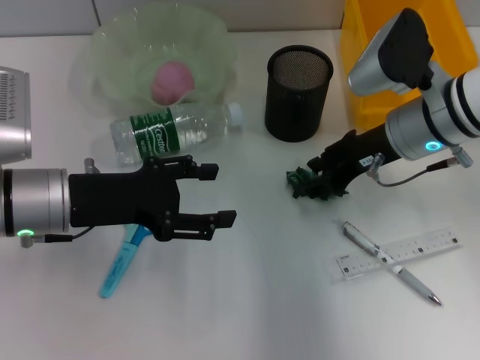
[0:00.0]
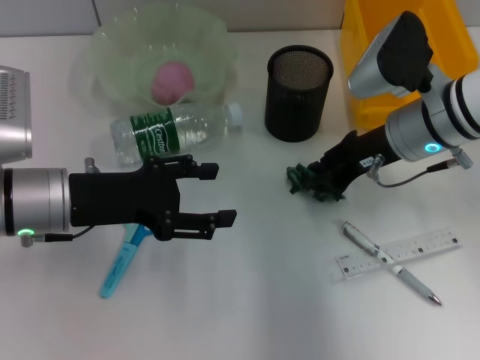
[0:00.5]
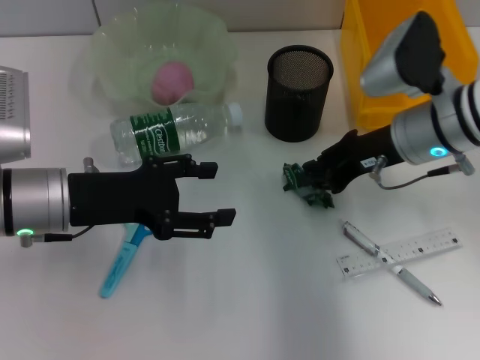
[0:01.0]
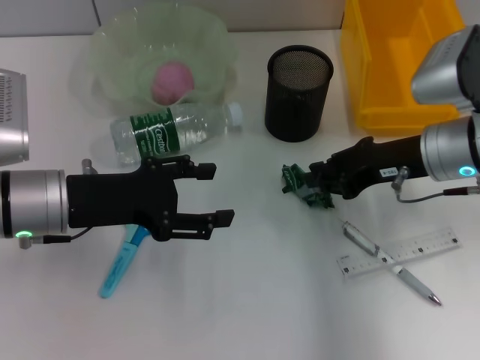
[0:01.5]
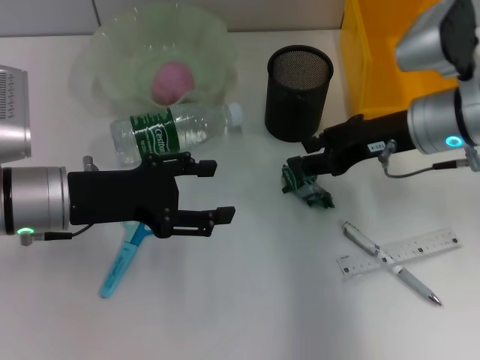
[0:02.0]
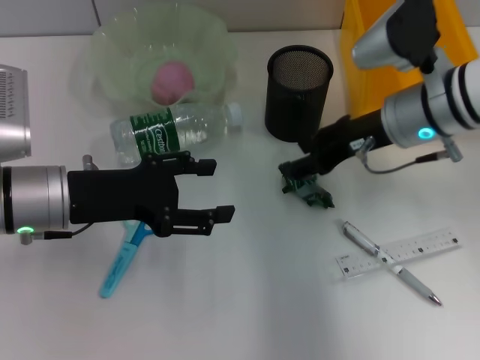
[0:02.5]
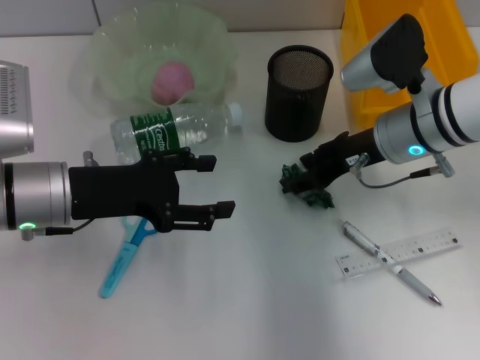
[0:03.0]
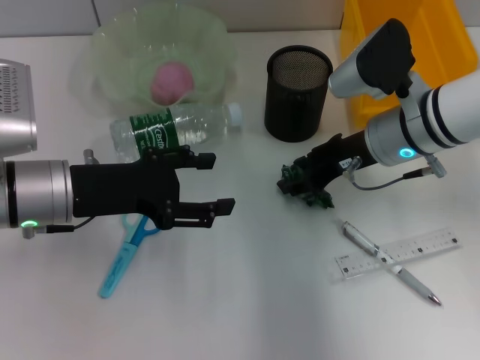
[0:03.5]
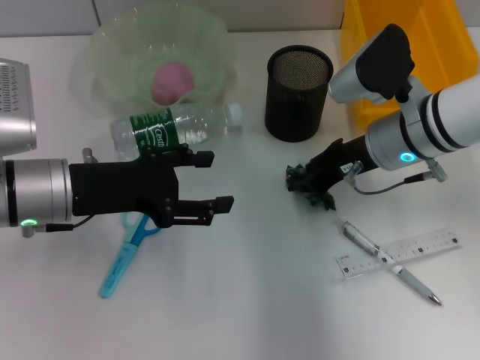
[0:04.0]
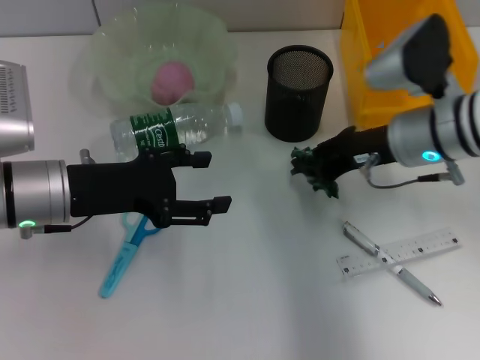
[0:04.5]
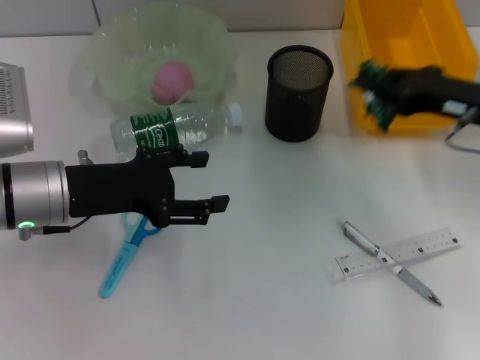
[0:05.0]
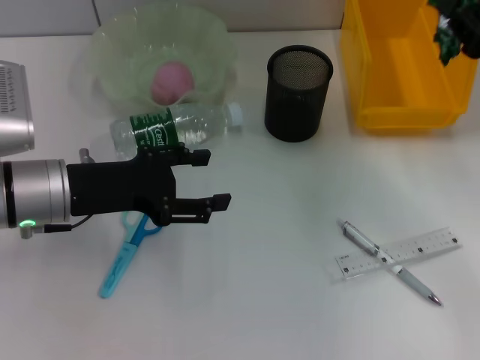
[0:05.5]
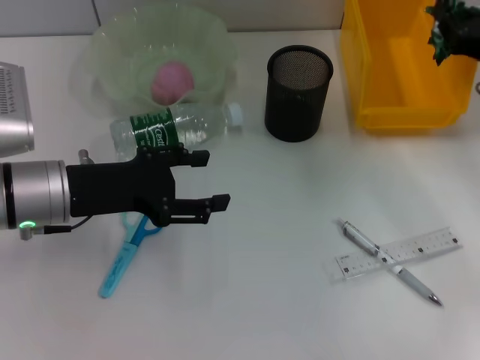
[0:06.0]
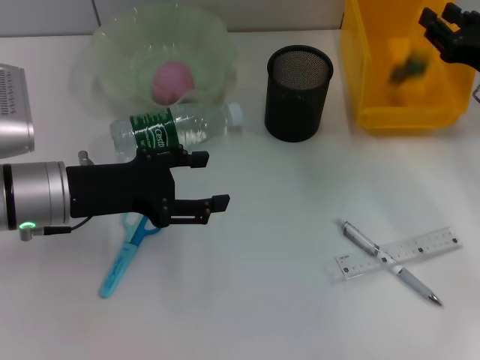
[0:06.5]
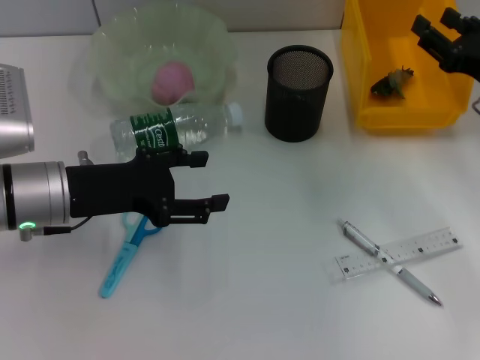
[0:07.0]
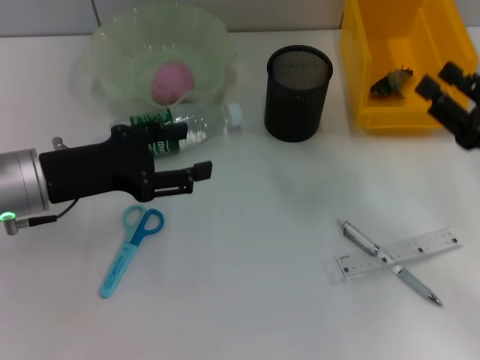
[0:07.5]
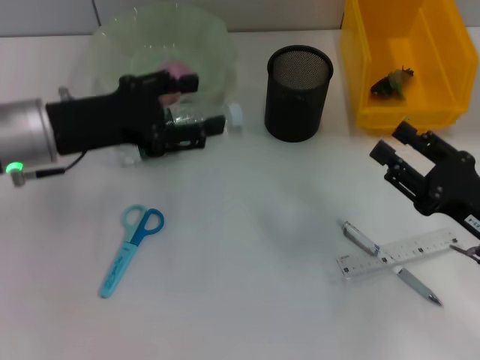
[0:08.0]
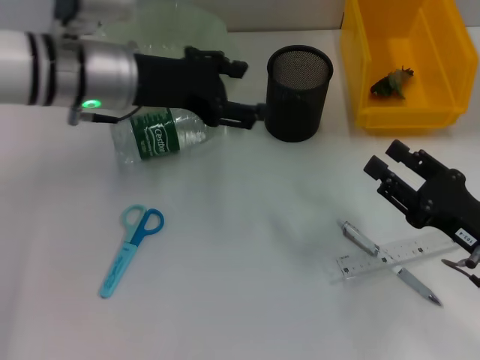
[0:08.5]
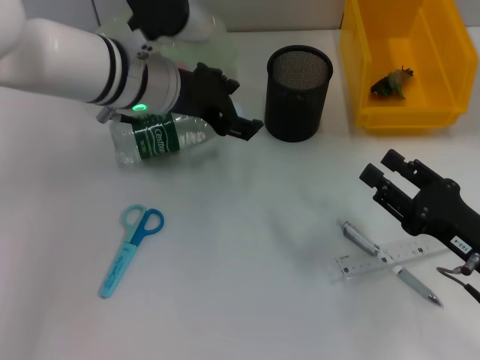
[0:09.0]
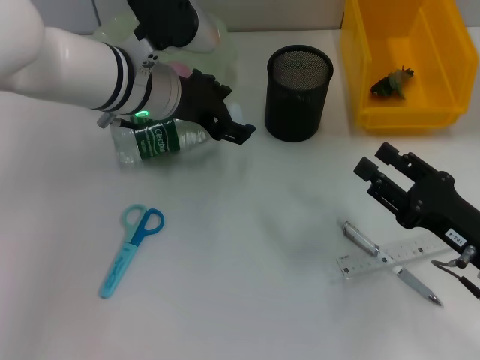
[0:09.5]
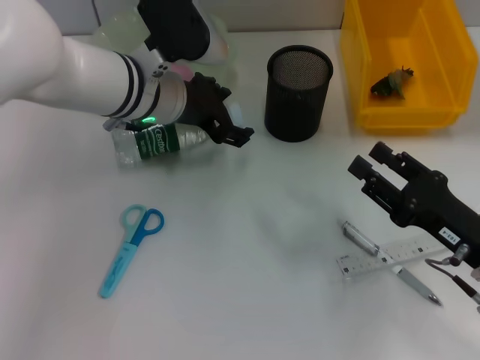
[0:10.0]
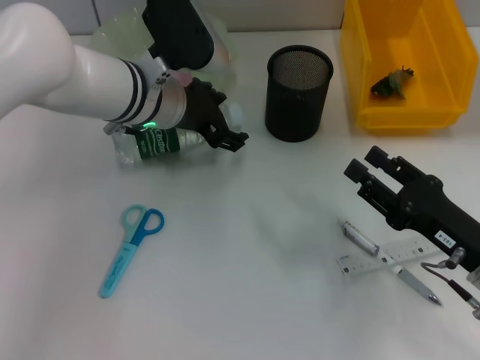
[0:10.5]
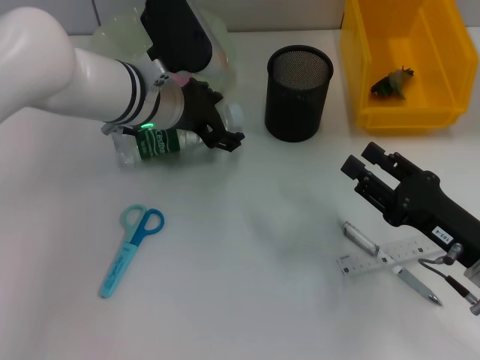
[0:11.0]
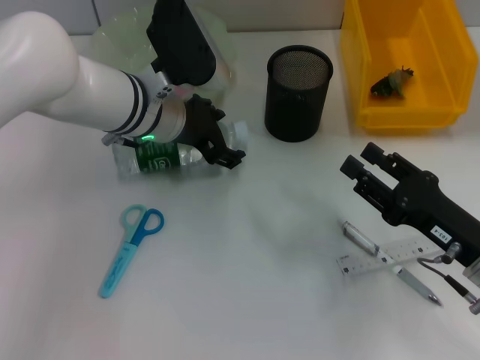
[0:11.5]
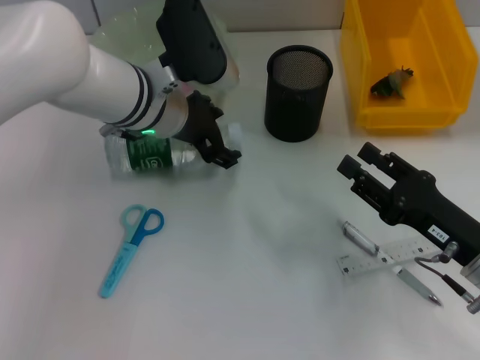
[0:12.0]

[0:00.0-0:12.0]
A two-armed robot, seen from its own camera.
Step, 0:01.0 to 0:06.5: Place the plastic into the trash can with the right hand.
0:00.0 to 0:02.0: The right gripper closes up.
0:02.0 to 0:04.0: The right gripper opens and closes again.
0:04.0 to 0:06.0: The right gripper travels to the right by about 15 cm.
0:06.0 to 0:08.0: The right gripper travels backward and downward by approximately 15 cm, and opens its fingers.
0:08.0 to 0:10.0: The left gripper is displaced to the right and forward by some 15 cm.
0:10.0 to 0:12.0: The grippers make only small movements.

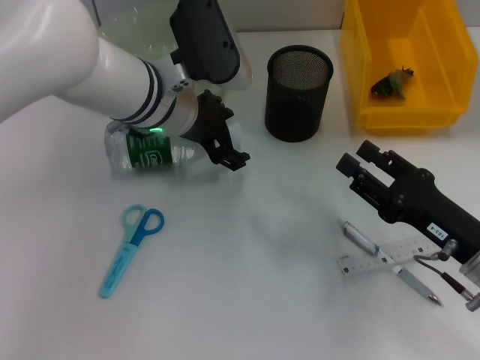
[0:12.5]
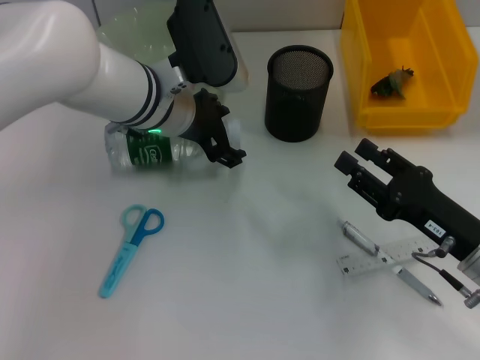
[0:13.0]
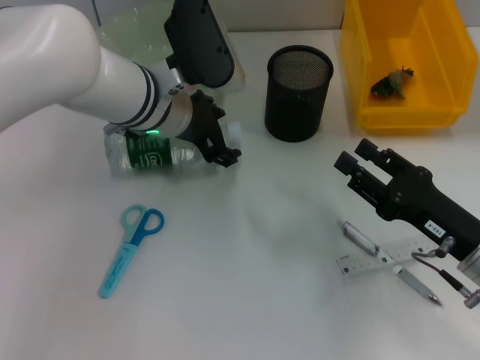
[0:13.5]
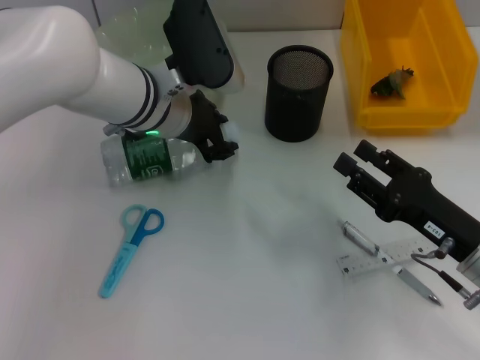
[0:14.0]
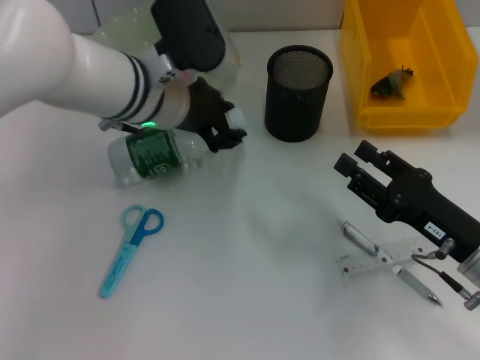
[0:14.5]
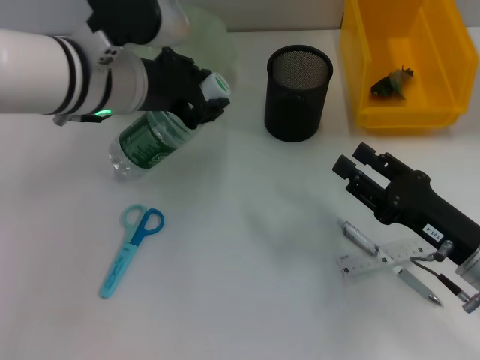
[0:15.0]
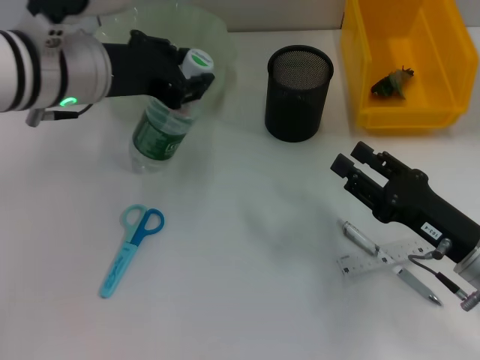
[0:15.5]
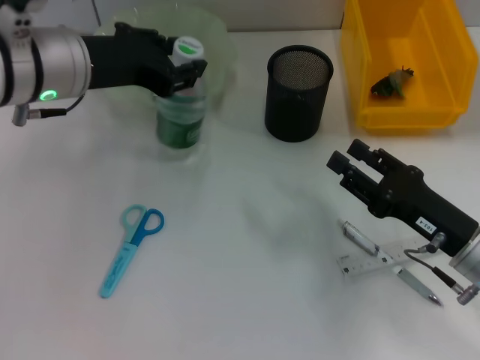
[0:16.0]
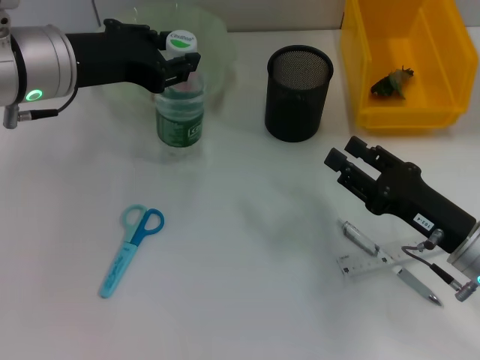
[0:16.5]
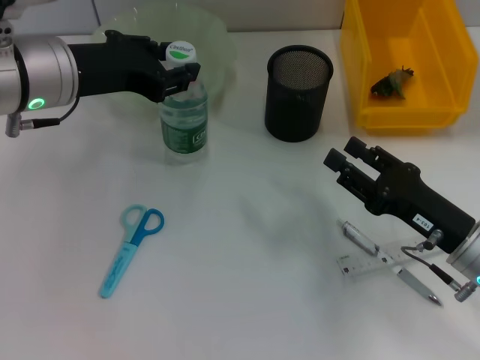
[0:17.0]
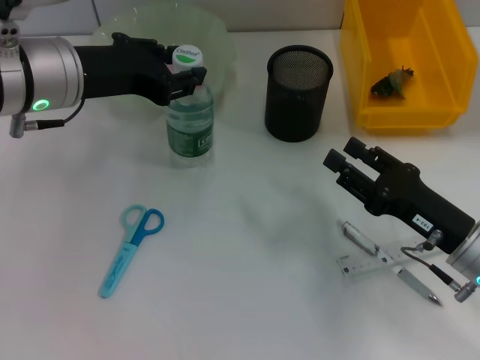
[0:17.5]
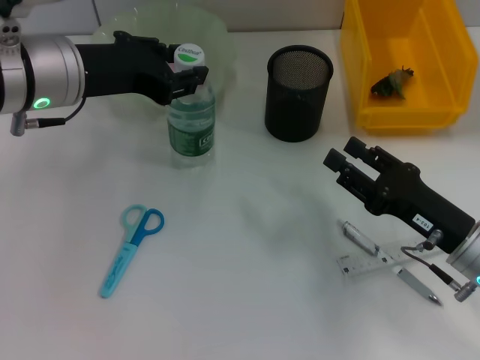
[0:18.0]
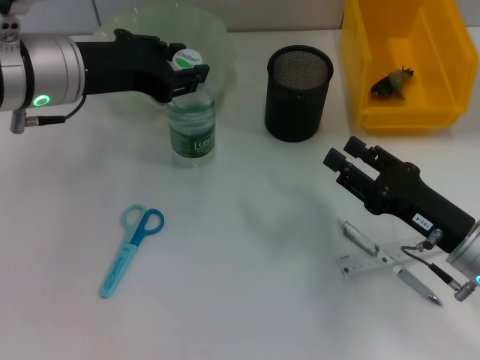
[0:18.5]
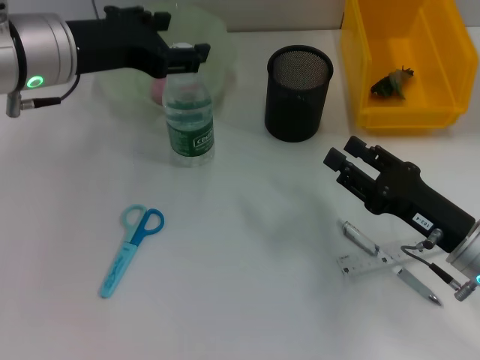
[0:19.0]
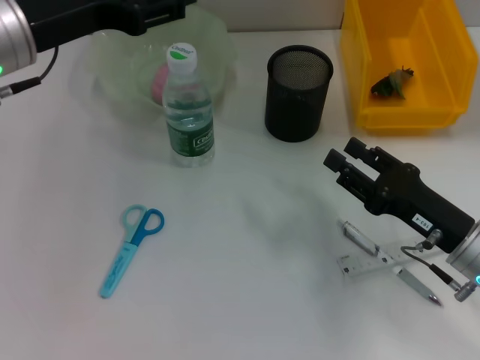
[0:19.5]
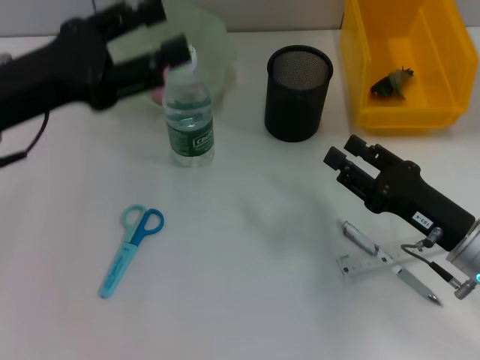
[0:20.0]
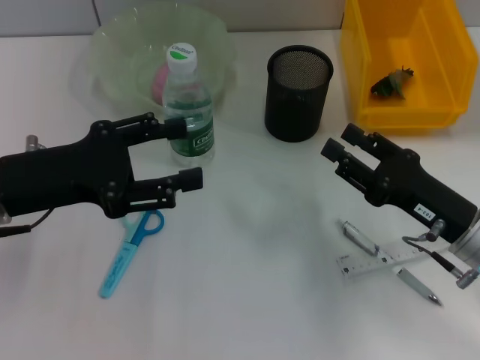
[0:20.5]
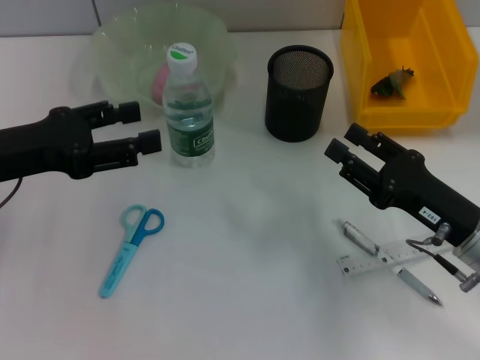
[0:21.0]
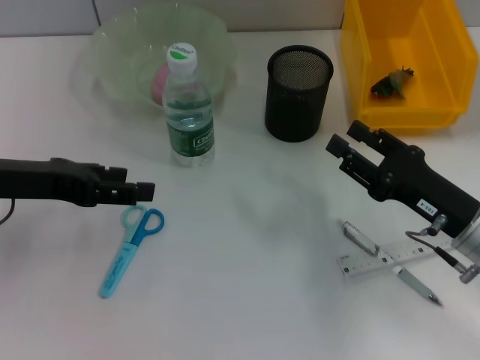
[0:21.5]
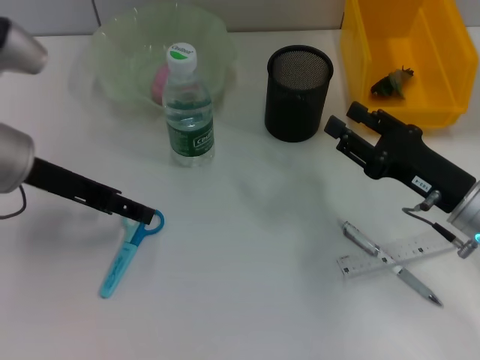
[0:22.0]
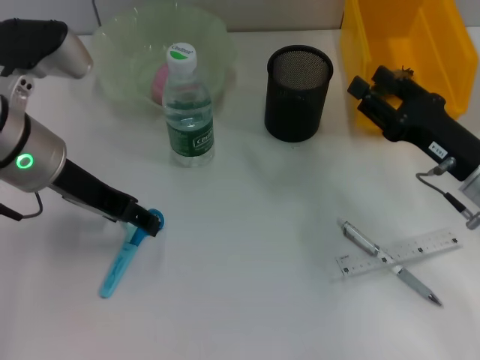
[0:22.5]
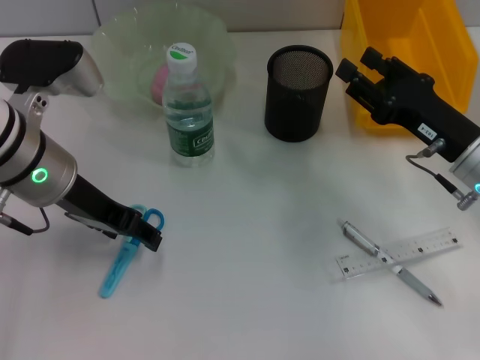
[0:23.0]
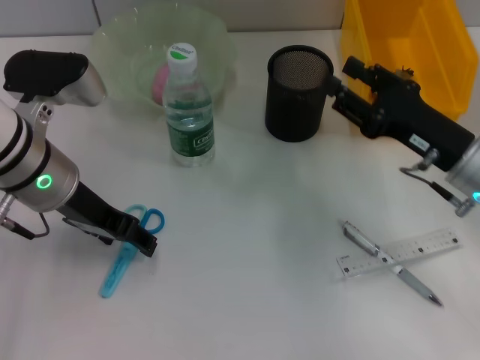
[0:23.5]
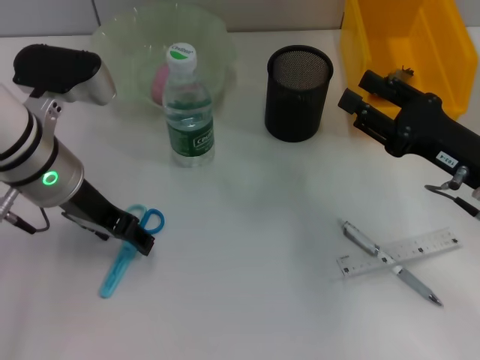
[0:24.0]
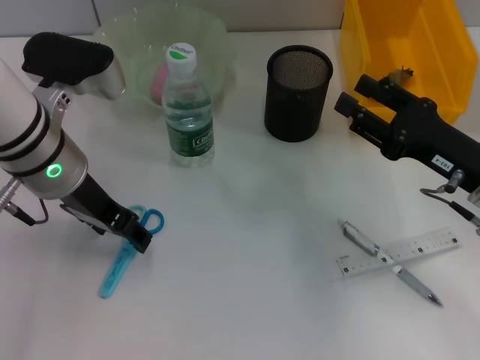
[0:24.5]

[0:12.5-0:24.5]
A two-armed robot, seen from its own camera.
Step, 0:14.5 to 0:19.0: Place the water bottle on the table with the left hand.
0:12.5 to 0:14.5: The left gripper closes its fingers.
0:14.5 to 0:16.5: The left gripper goes roughly 10 cm to the left and upward.
0:16.5 to 0:18.5: The two grippers keep their place.
0:18.5 to 0:20.5: The left gripper goes about 10 cm backward, to the left and downward, and opens.
0:20.5 to 0:22.5: The right gripper goes roughly 5 cm forward; the left gripper goes about 10 cm forward and to the right.
0:22.5 to 0:24.5: The grippers stay close to where they were, moving slightly.

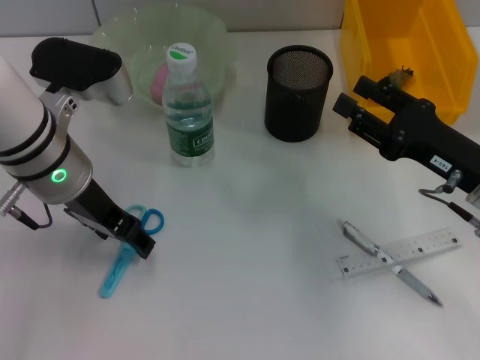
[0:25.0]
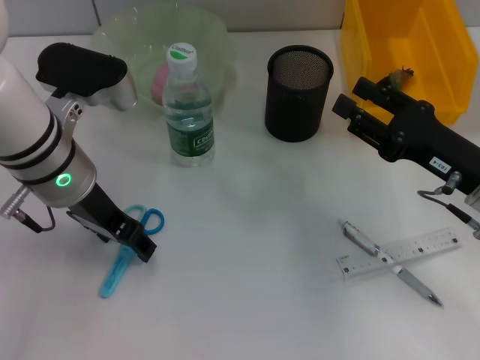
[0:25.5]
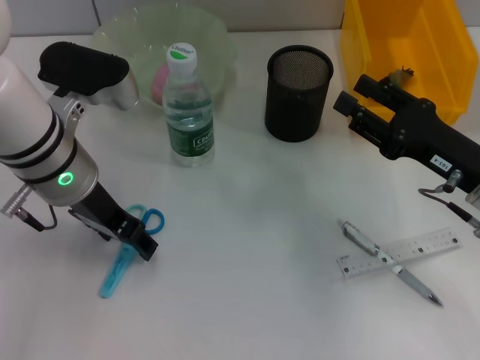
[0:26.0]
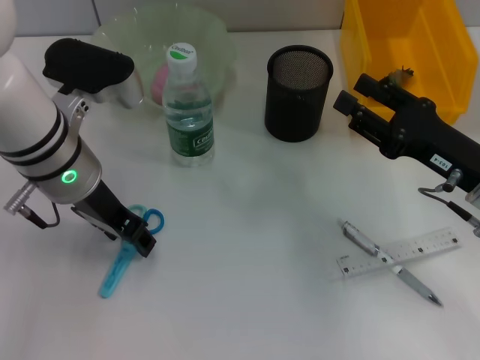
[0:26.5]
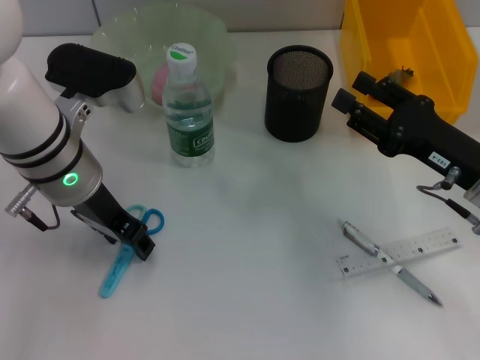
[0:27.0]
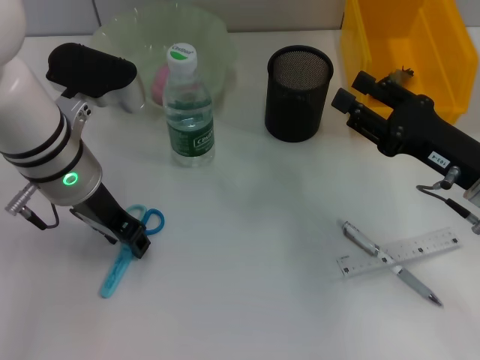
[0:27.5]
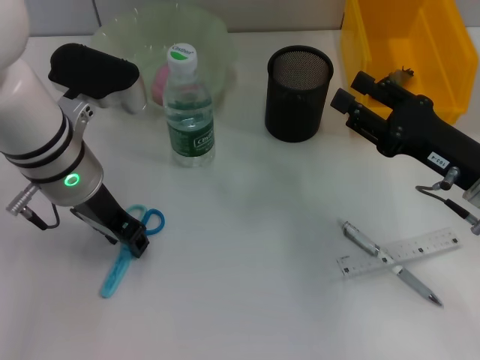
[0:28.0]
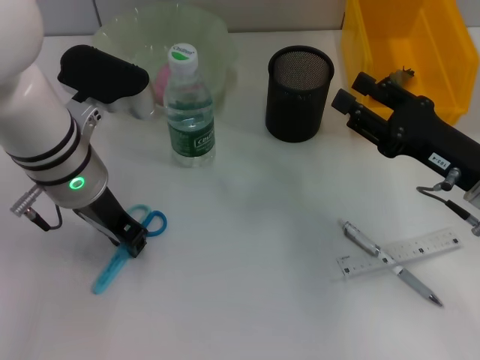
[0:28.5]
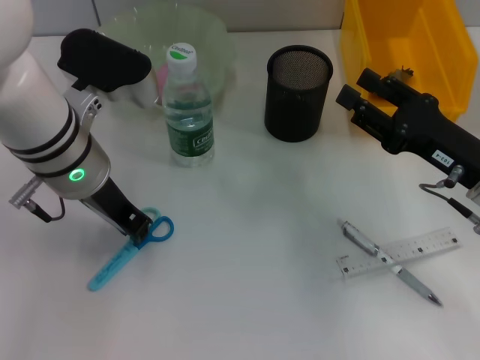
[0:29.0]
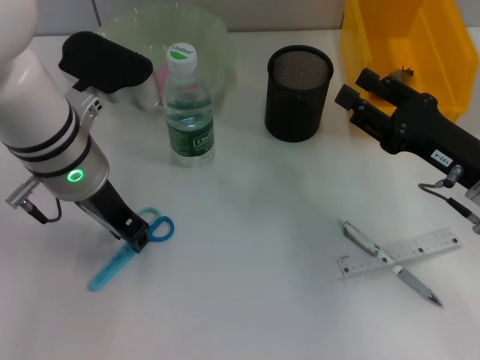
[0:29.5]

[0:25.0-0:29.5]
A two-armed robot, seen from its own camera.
0:25.0 to 0:27.0: Both grippers stay about where they are.
0:27.0 to 0:29.5: The left gripper closes its fingers.
